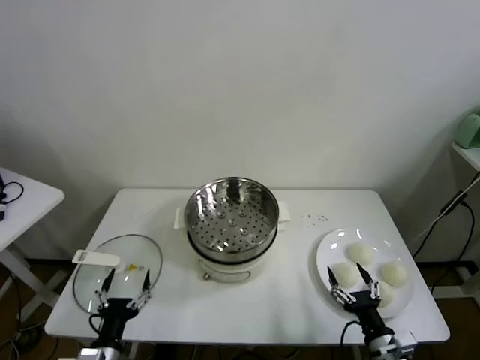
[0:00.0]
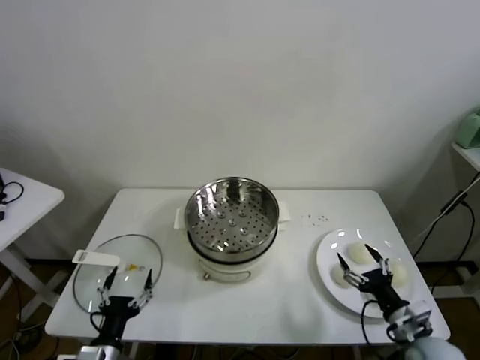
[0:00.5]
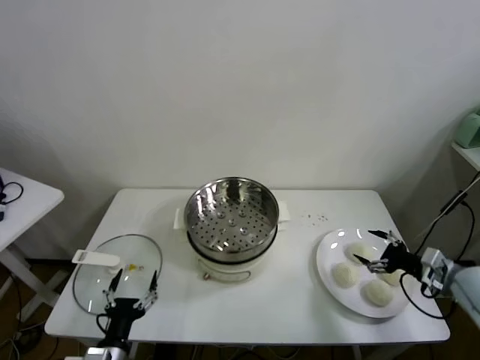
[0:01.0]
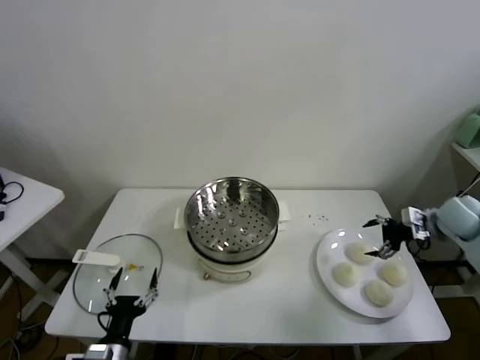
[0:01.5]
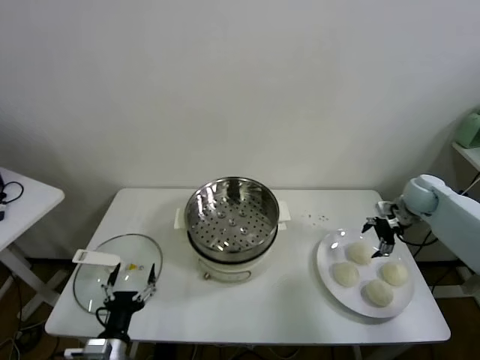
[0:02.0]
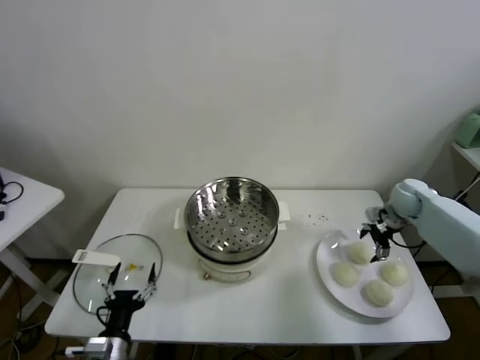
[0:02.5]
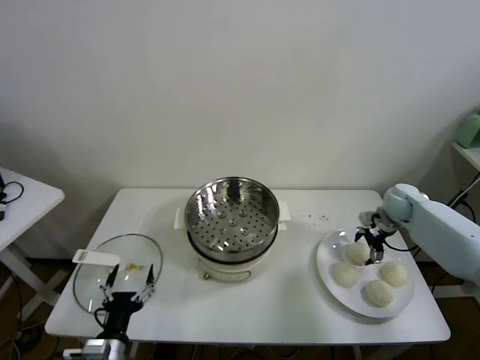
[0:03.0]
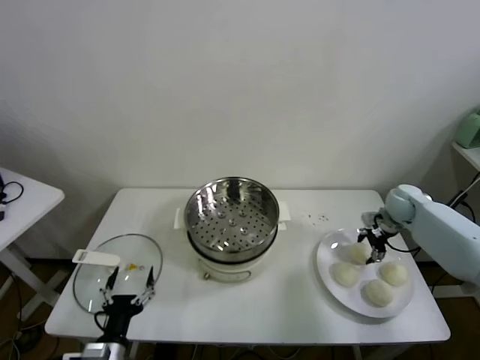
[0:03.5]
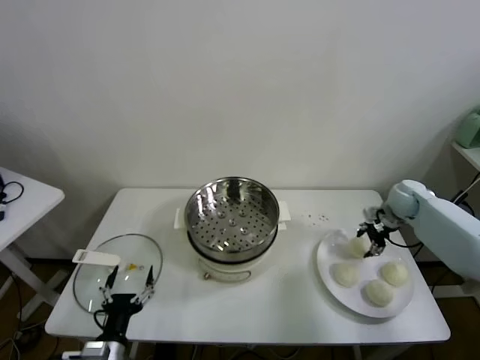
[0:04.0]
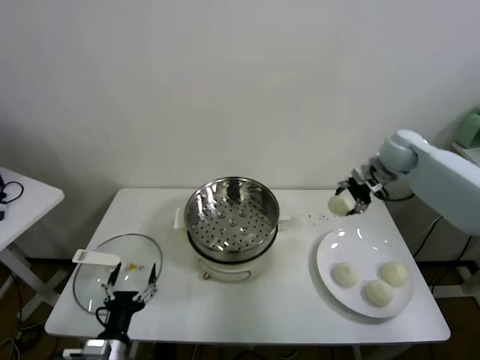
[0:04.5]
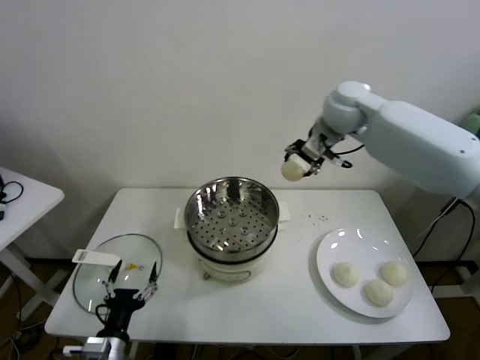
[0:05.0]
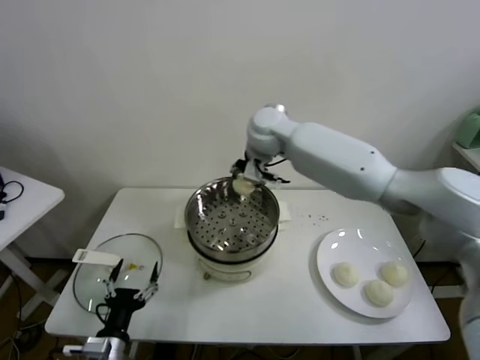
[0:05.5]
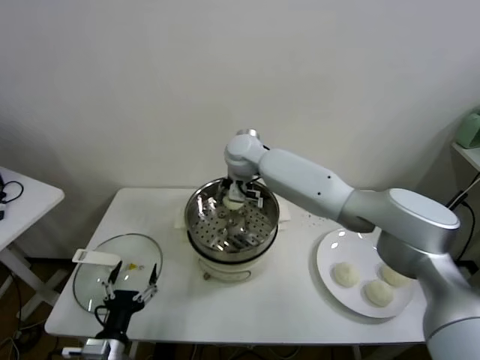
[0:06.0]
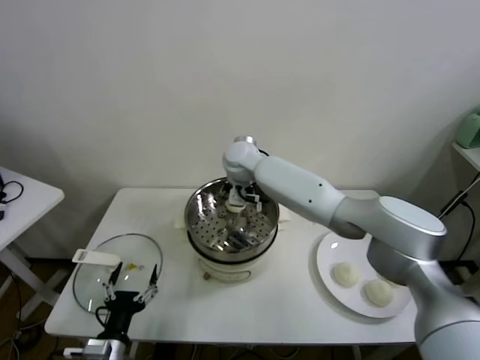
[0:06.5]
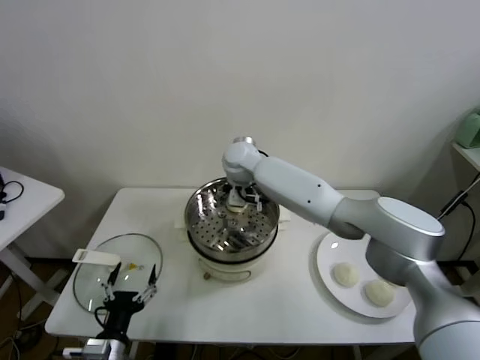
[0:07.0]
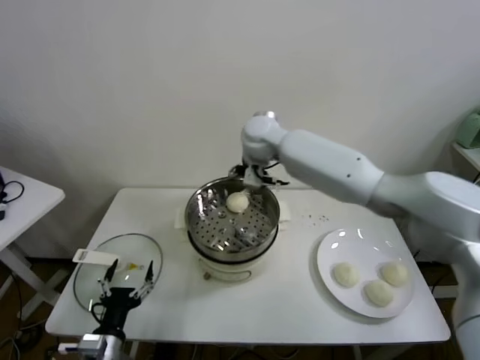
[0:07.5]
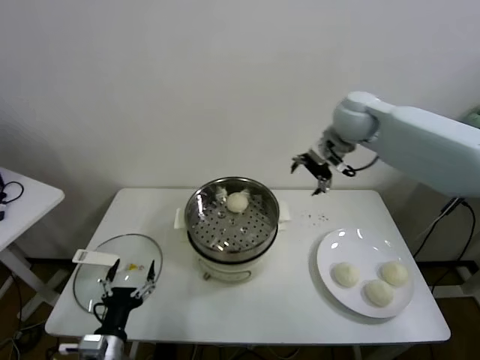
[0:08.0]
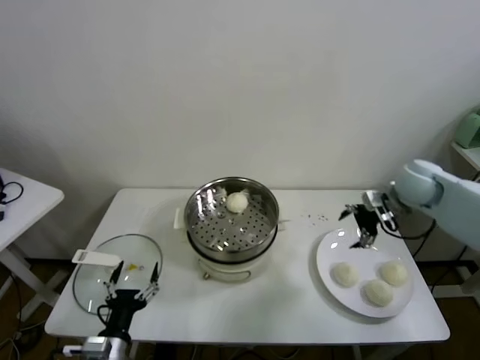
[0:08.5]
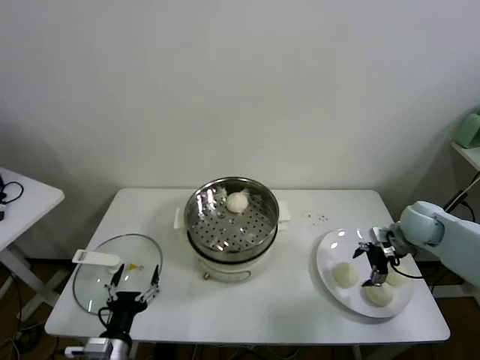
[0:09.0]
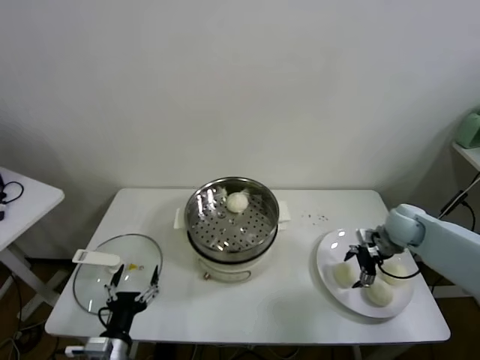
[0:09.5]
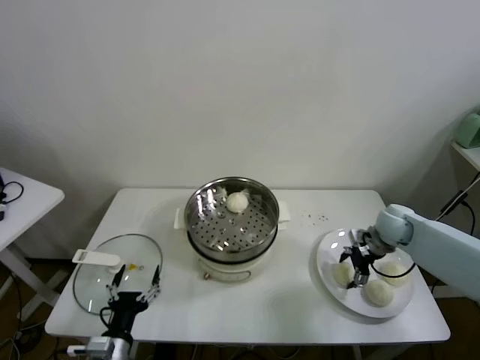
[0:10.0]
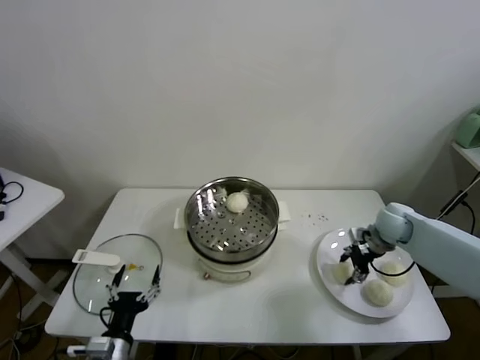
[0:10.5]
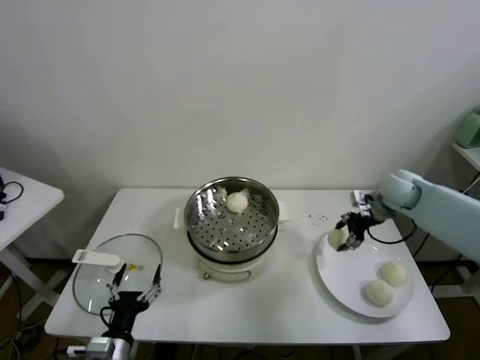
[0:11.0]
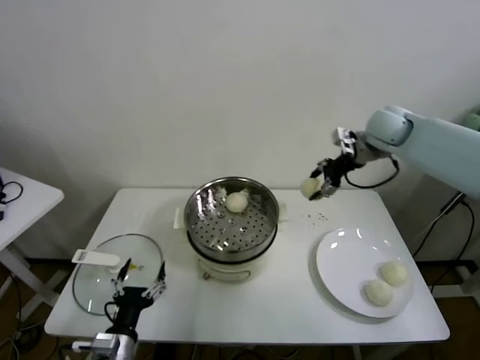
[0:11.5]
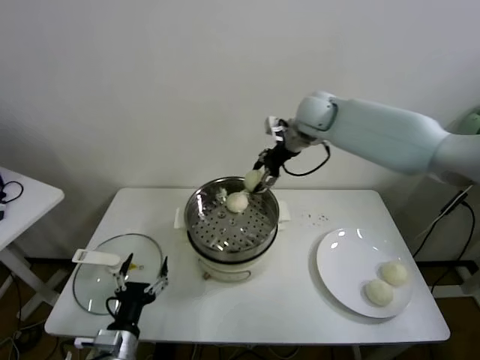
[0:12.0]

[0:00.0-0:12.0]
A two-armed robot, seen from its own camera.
Task of the whole recording: take steamed baozi put them in steamer.
Step, 0:00.0 to 0:03.5: Grasp the baozi in the plate with right gripper.
Step, 0:04.0 to 0:06.5: Place the baozi on the steamer with right gripper.
Step, 0:07.5 to 0:10.0: Grasp the baozi in the plate with right gripper.
0:02.0 to 0:04.0: The right gripper closes.
0:04.0 to 0:06.0: The right gripper travels to the left by about 40 cm.
0:06.0 to 0:08.0: The right gripper heads to the right, covering roughly 25 cm, and opens up.
0:08.0 to 0:10.0: The right gripper heads downward and to the right, covering roughly 30 cm.
0:10.0 to 0:12.0: The right gripper travels upward, to the left and forward by about 35 cm, and closes.

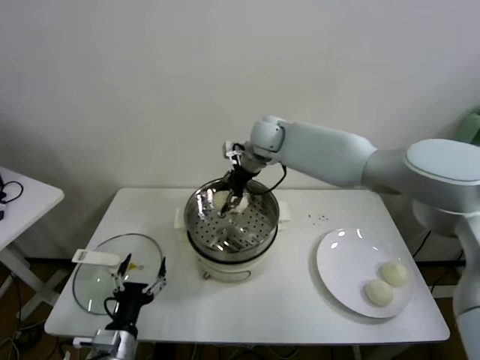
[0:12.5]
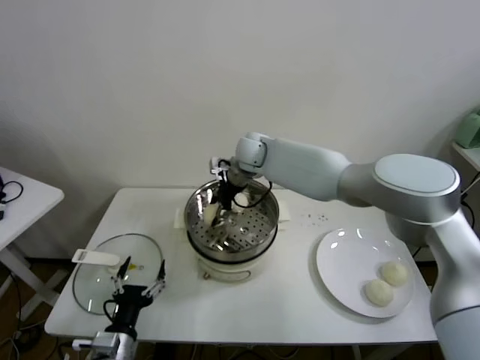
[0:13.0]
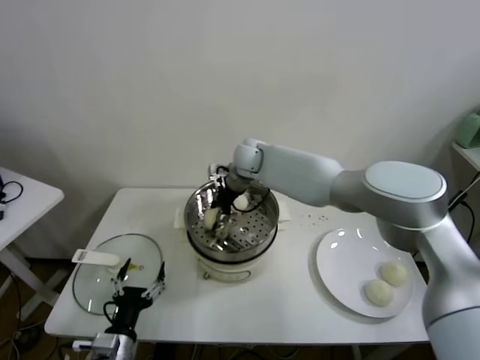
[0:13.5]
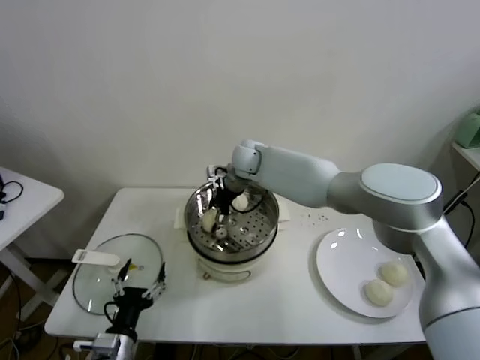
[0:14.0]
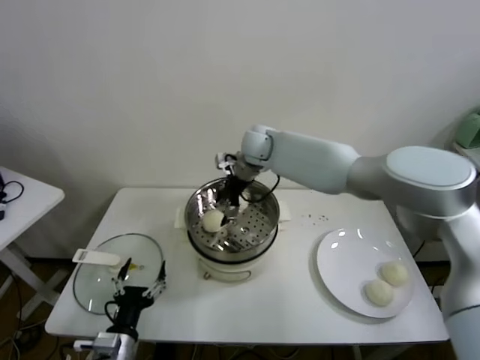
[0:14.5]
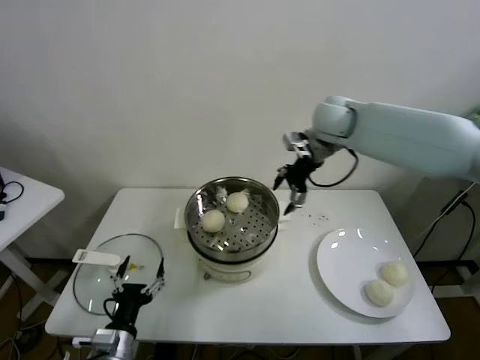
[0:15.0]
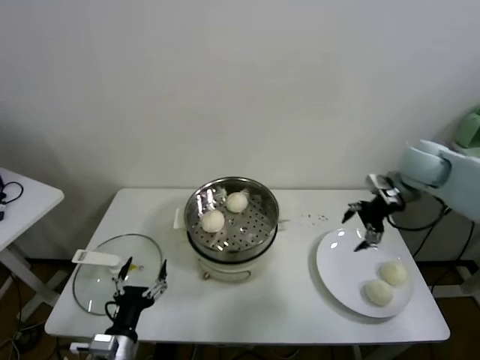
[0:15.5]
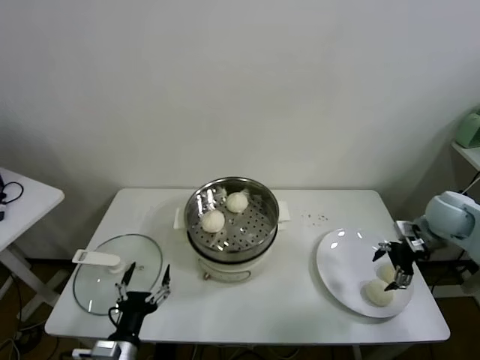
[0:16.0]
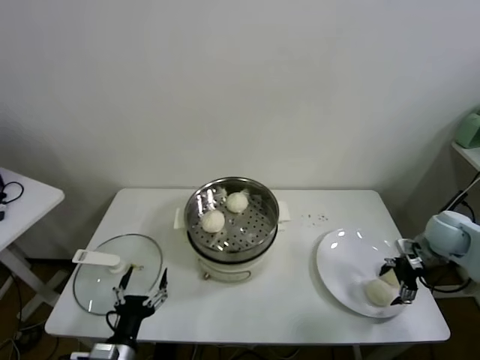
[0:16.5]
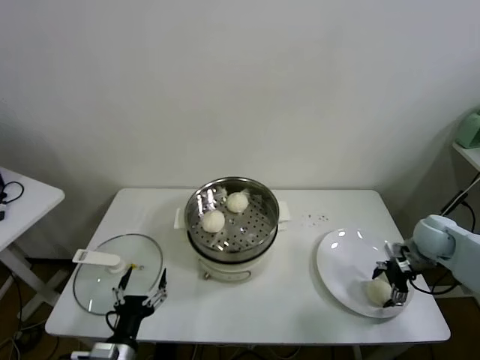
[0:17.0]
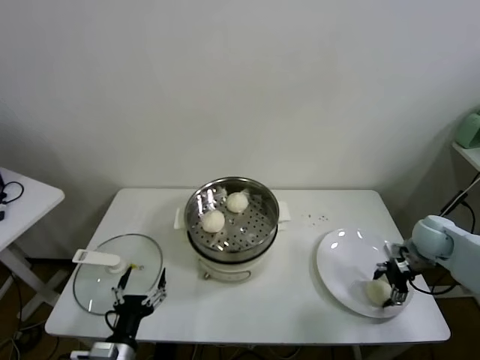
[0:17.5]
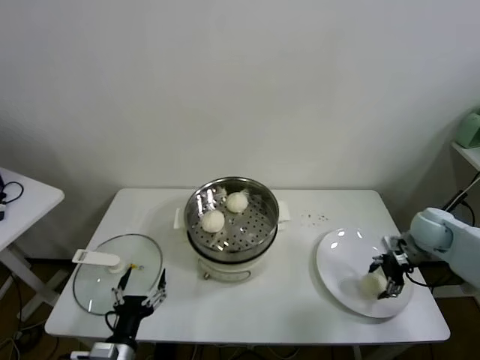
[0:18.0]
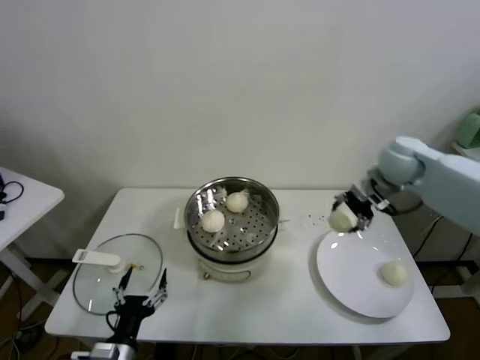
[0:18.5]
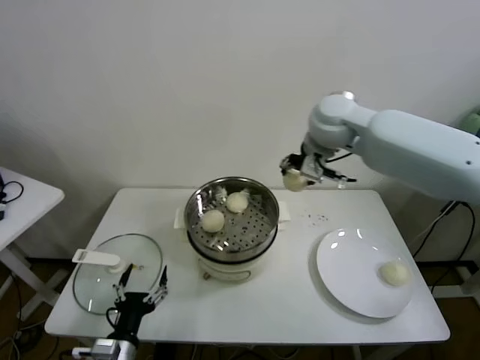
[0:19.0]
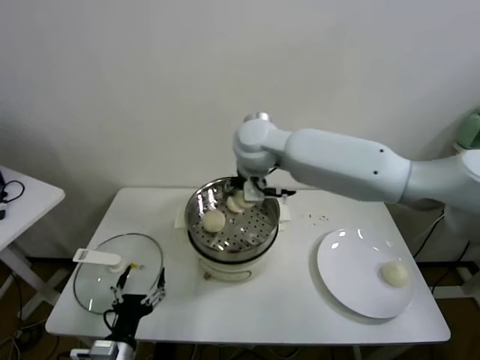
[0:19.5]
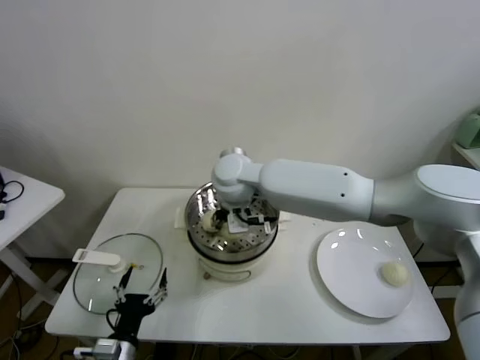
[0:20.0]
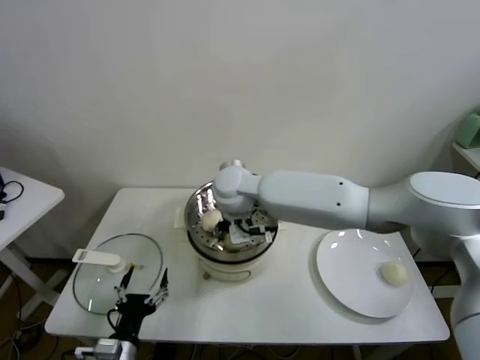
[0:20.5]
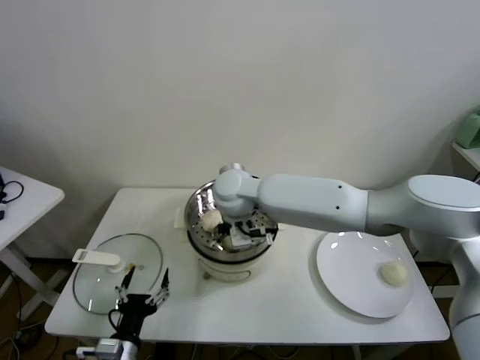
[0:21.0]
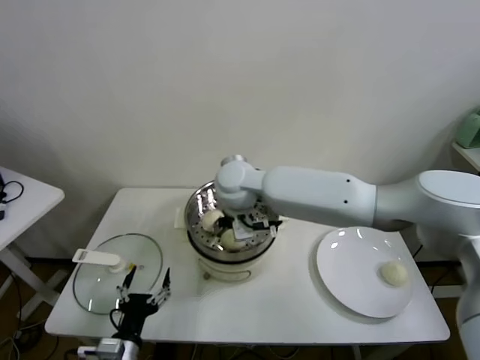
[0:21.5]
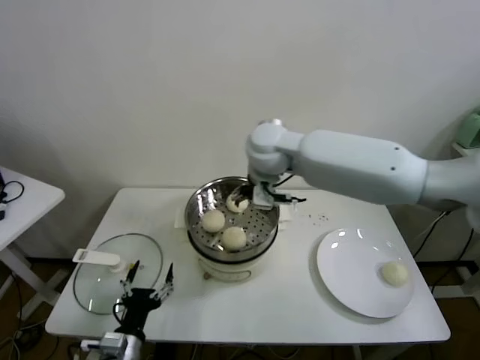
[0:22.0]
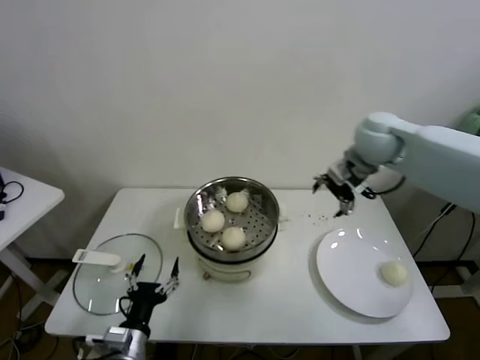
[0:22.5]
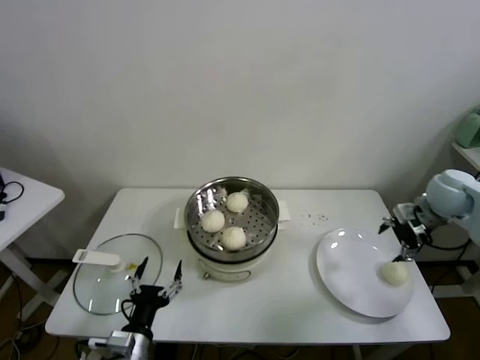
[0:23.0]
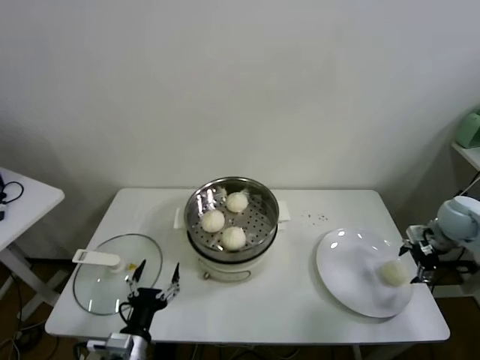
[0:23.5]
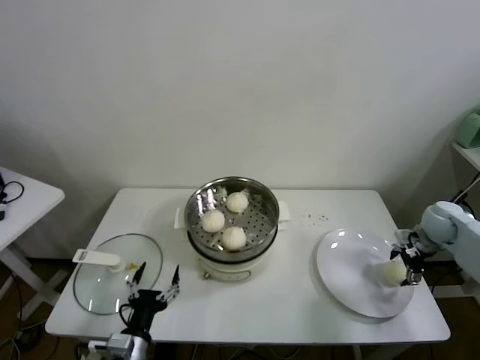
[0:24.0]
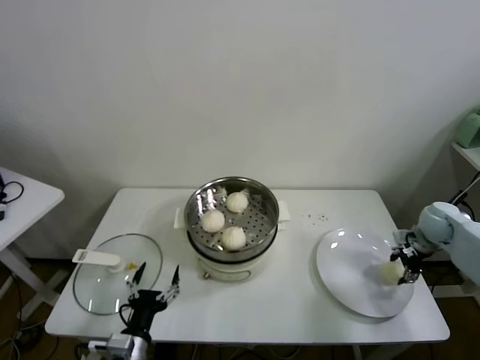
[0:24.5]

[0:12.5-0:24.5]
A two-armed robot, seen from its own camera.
Task of the whole recording: take steamed baozi put them in steamer.
Step, 0:14.5 to 0:17.5: Grasp the baozi in the plate with right gripper.
Step, 0:18.0 to 0:21.0: Place the baozi on the steamer with right gripper.
Step, 0:21.5 to 0:24.5: Grasp the baozi in the plate with right gripper.
0:12.5 to 0:14.5: The right gripper opens up.
0:14.5 to 0:16.5: The right gripper goes about 50 cm to the right and backward.
0:16.5 to 0:18.5: The right gripper goes about 25 cm upward, to the left and forward, and closes.
0:18.5 to 0:20.5: The right gripper shifts approximately 35 cm to the left.
0:20.5 to 0:22.5: The right gripper moves to the right, some 30 cm, and opens up.
0:22.5 to 0:24.5: The right gripper travels downward and to the right by about 30 cm, and closes its fingers.

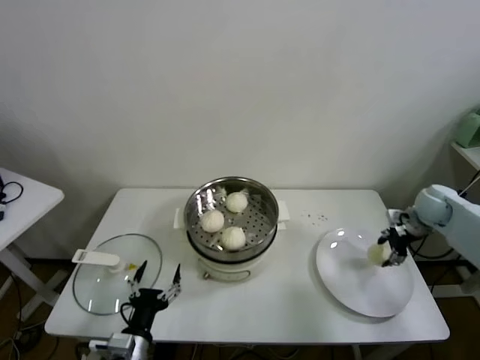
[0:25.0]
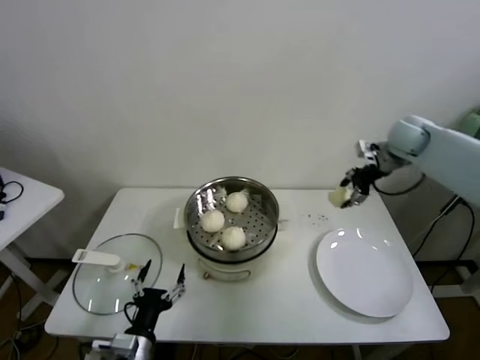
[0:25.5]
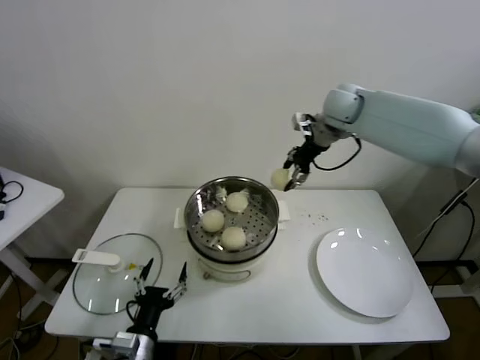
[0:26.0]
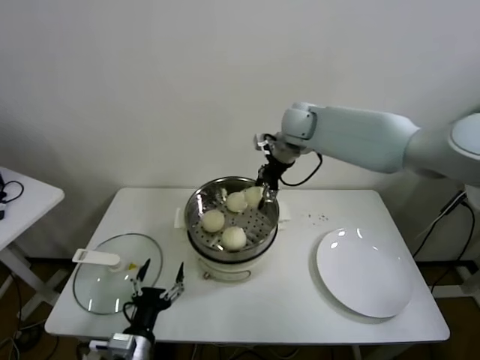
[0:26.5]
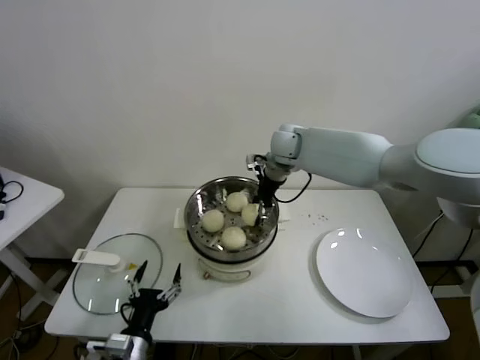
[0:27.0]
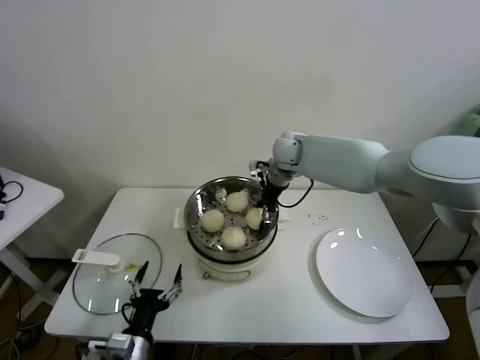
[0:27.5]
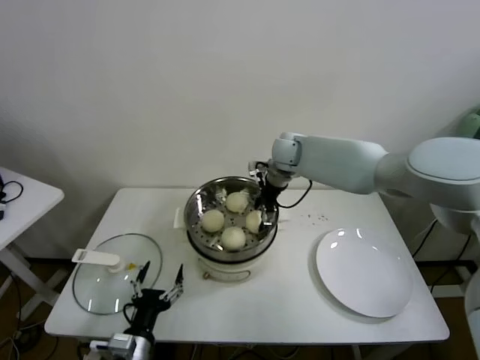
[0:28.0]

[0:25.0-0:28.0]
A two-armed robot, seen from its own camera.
Task of the whole recording: take steamed baozi put them in steamer.
Step, 0:25.0 to 0:28.0: Place the baozi on the steamer with right gripper.
0:25.0 to 0:26.5: The right gripper is displaced to the left and upward by approximately 40 cm.
0:26.5 to 0:28.0: The right gripper shifts roughly 10 cm downward, and opens its fingers.
